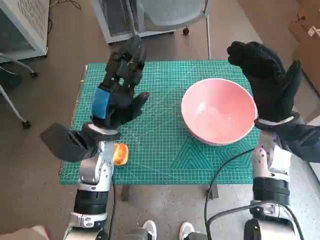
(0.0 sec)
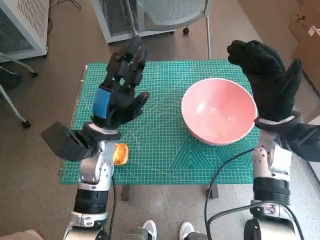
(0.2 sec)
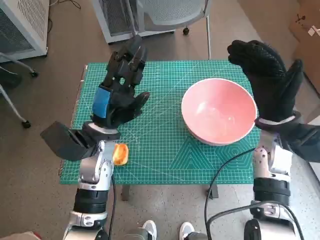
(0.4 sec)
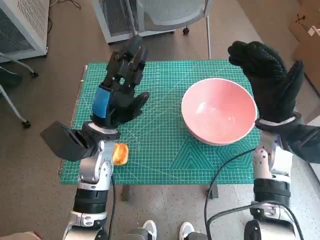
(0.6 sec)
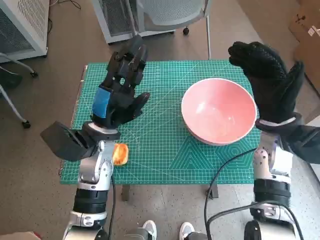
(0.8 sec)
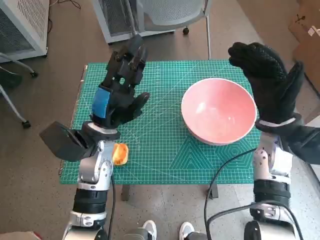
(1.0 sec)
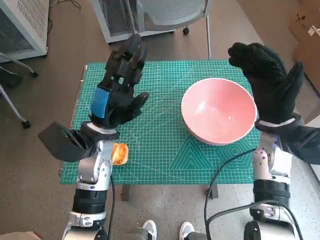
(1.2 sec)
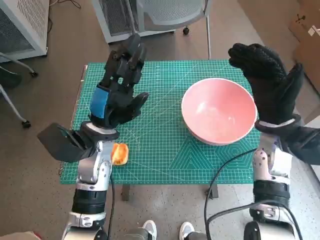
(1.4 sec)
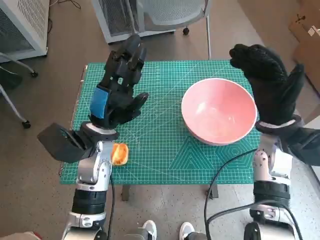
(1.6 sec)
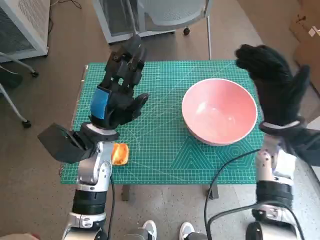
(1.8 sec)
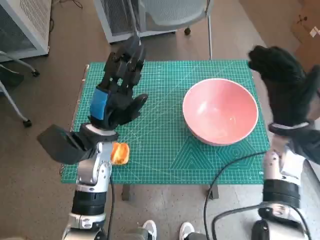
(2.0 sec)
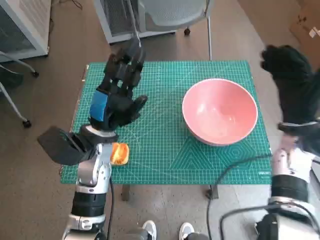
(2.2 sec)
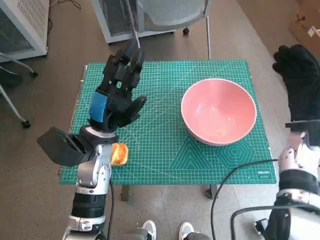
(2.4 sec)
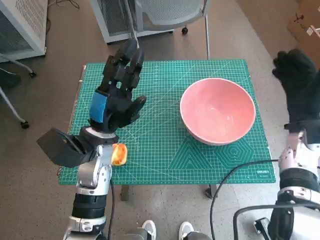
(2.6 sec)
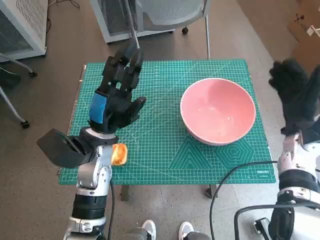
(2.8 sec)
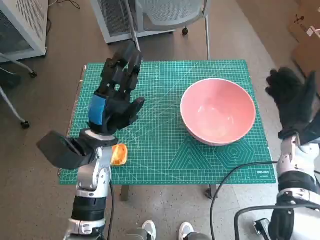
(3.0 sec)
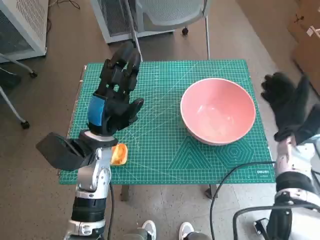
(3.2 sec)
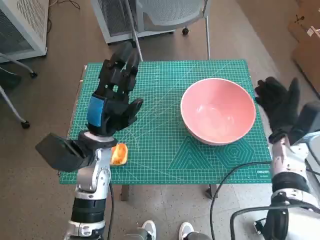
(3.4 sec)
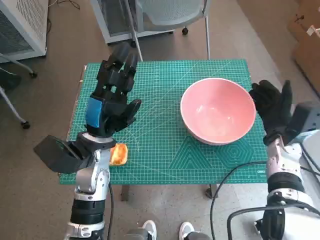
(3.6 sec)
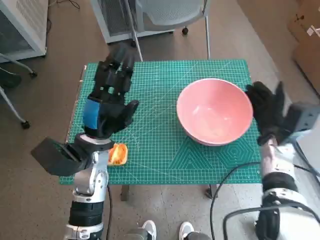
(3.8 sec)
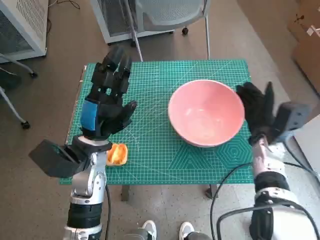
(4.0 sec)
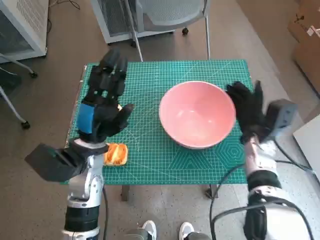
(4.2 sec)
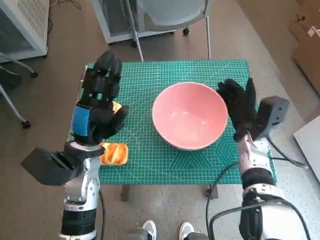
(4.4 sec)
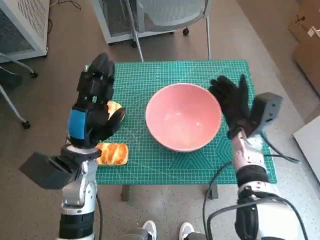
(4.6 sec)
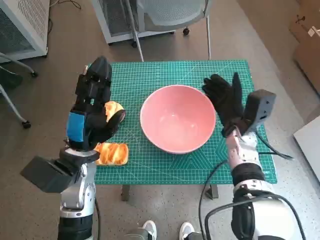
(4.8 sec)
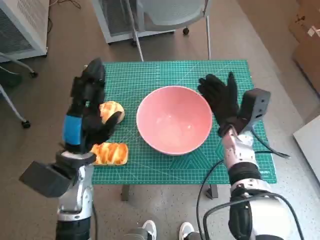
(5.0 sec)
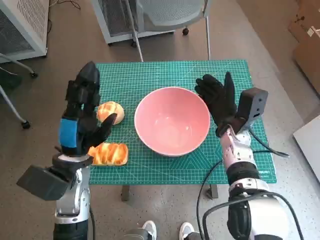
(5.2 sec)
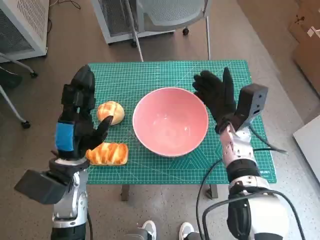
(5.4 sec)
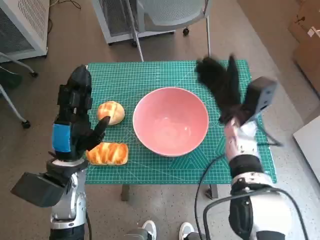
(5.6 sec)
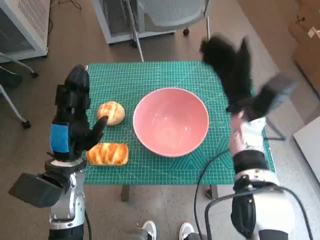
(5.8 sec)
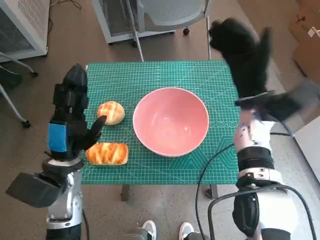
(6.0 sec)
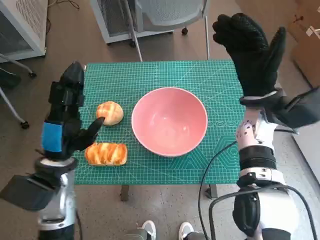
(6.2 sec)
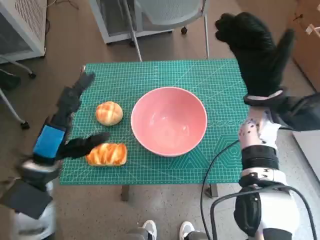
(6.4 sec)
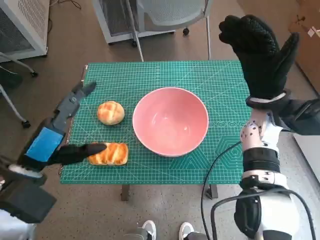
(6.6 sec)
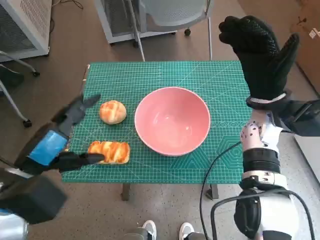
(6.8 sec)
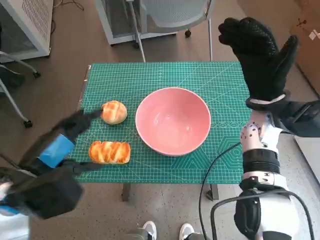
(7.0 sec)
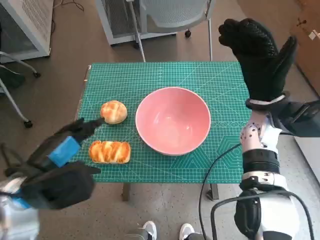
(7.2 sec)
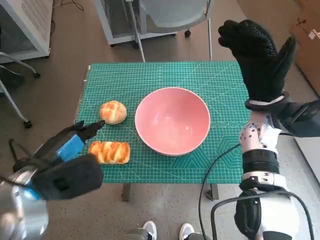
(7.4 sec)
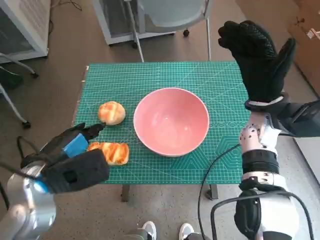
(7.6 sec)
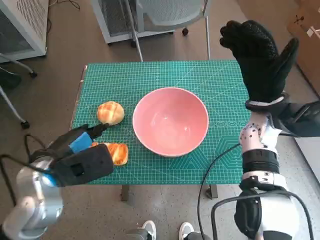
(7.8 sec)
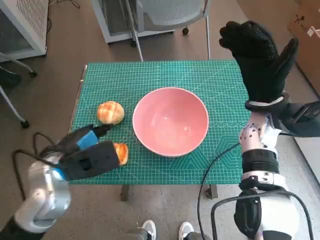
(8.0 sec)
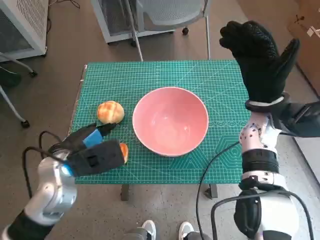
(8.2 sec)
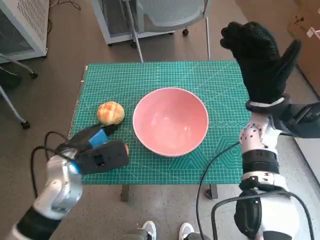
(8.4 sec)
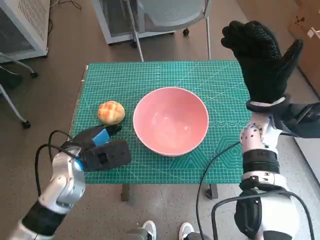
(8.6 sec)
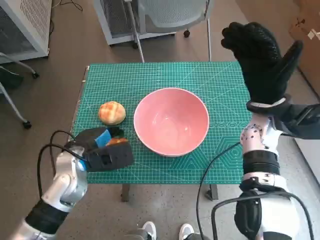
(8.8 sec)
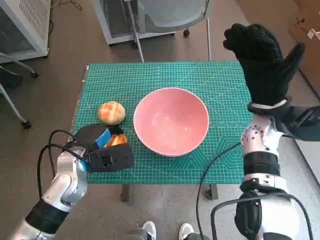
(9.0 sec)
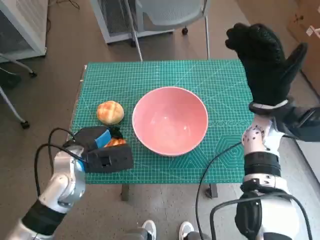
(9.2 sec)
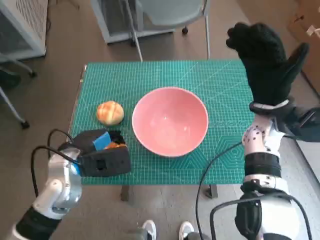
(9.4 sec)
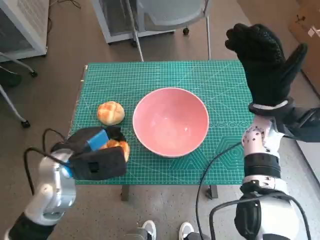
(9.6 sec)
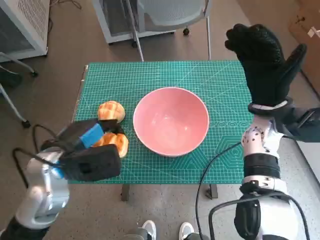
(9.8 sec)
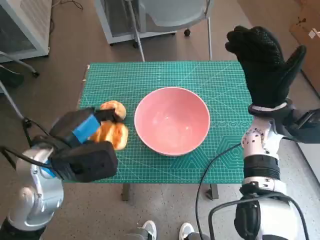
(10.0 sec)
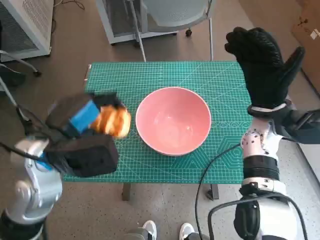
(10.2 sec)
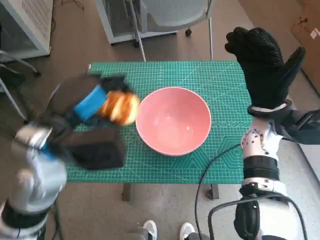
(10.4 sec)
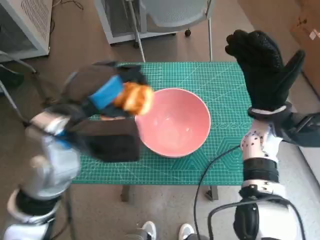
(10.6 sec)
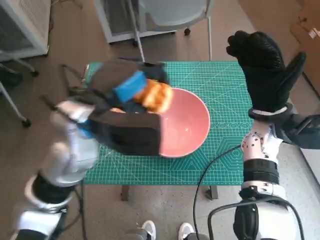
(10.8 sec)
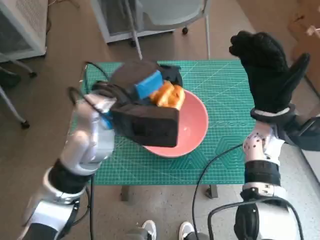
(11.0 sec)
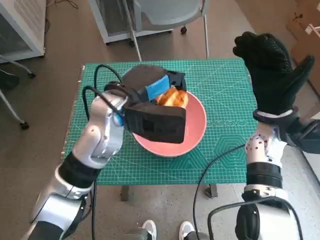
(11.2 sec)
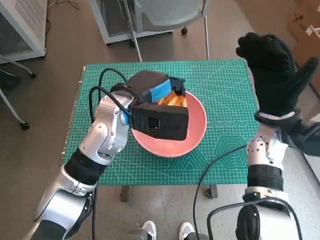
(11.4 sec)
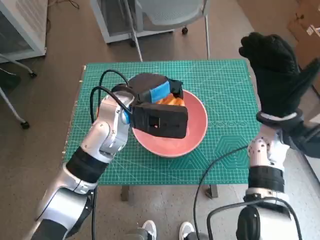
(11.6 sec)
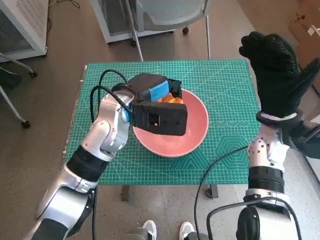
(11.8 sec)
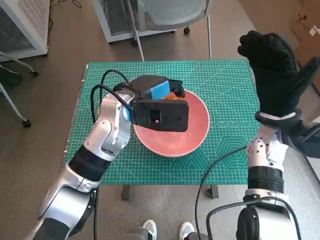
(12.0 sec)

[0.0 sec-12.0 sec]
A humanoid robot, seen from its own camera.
Step, 0.0 sec to 5.2 sec: Move the pink bowl to the center of table with right hand.
Step, 5.4 sec to 9.0 sec: Grasp the long bread with left hand.
1.6 sec to 3.0 sec: The right hand moves to the right and downward, approximately 10 cm.
3.0 sec to 4.4 sec: The right hand heads to the left, covering roughly 10 cm.
4.4 sec to 6.0 sec: The right hand heads upward, covering roughly 10 cm.
6.0 sec to 7.6 sec: The left hand moves upward, roughly 5 cm.
7.6 sec to 9.0 sec: The left hand goes some 10 cm downward and forward.
9.0 sec to 10.4 sec: The left hand goes roughly 15 cm upward.
10.4 sec to 12.0 sec: The left hand goes some 15 cm forward and to the right.

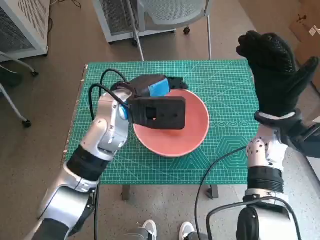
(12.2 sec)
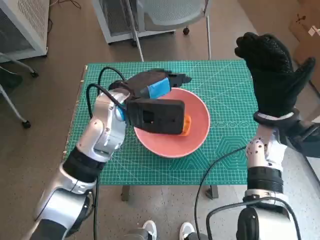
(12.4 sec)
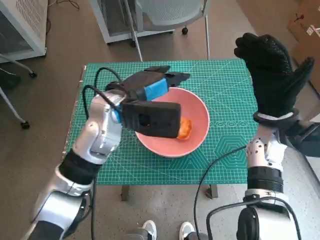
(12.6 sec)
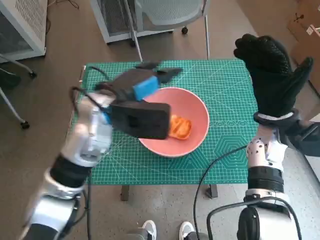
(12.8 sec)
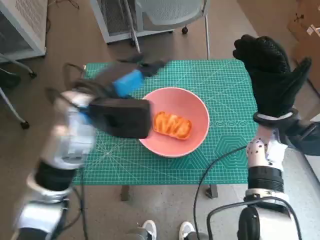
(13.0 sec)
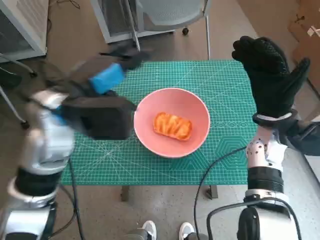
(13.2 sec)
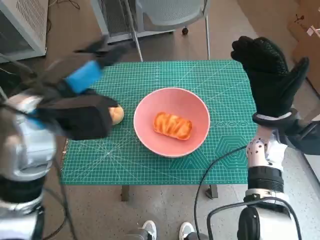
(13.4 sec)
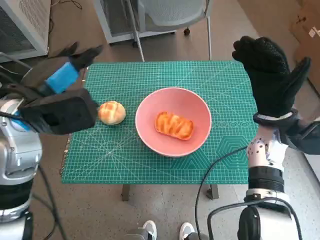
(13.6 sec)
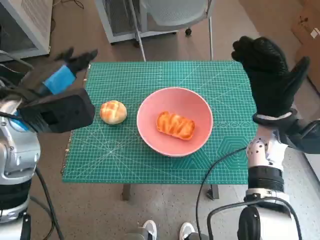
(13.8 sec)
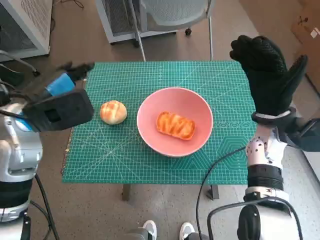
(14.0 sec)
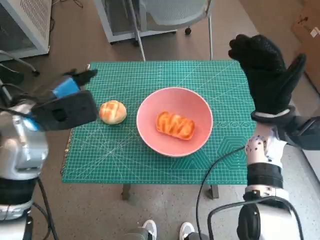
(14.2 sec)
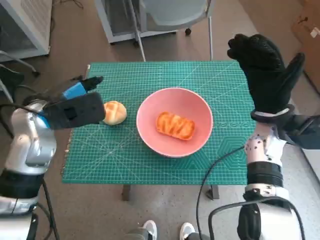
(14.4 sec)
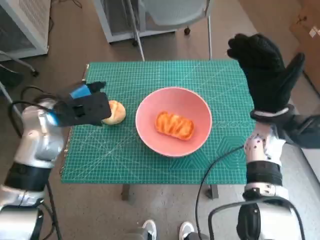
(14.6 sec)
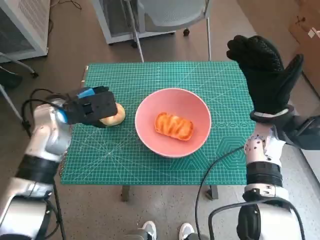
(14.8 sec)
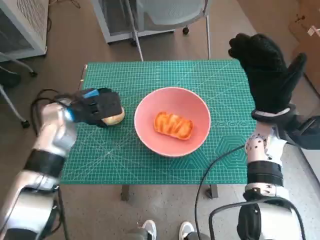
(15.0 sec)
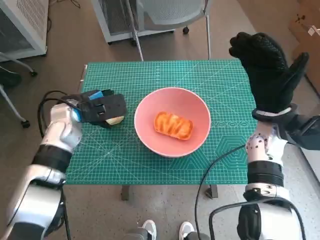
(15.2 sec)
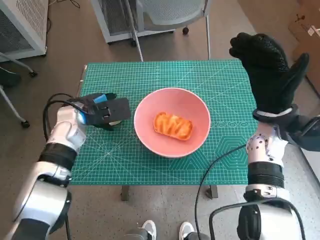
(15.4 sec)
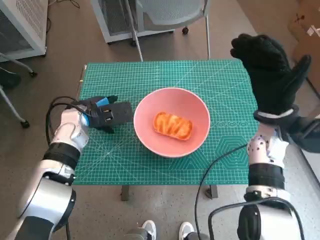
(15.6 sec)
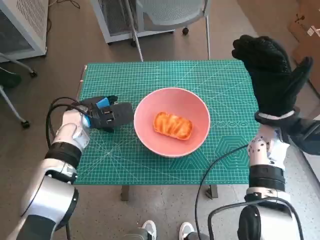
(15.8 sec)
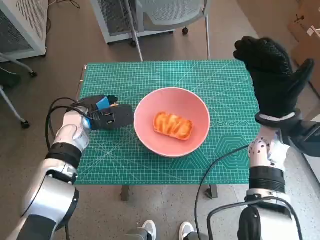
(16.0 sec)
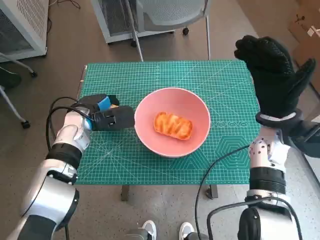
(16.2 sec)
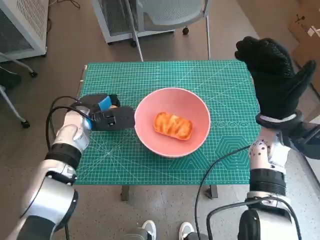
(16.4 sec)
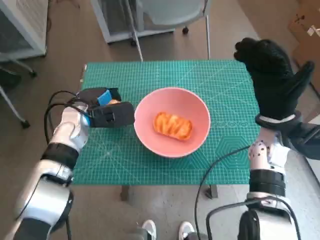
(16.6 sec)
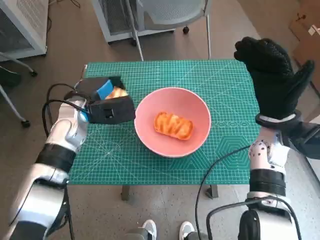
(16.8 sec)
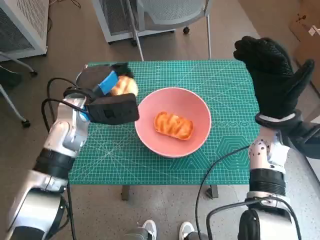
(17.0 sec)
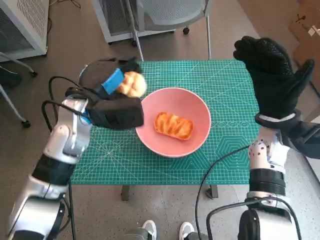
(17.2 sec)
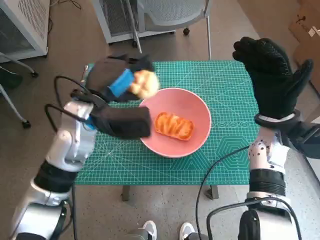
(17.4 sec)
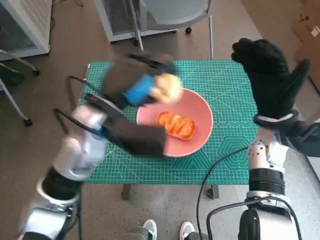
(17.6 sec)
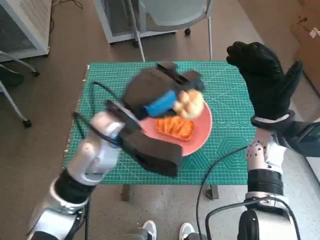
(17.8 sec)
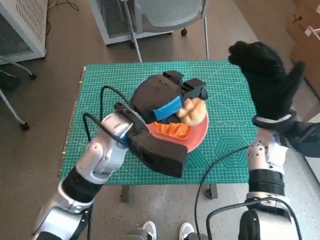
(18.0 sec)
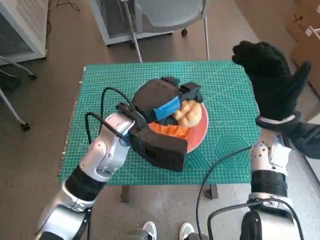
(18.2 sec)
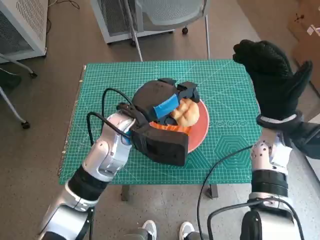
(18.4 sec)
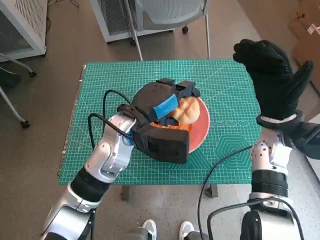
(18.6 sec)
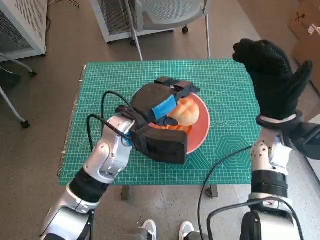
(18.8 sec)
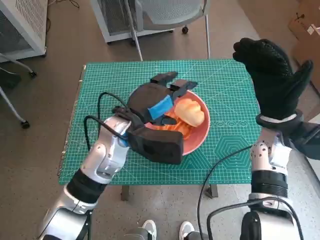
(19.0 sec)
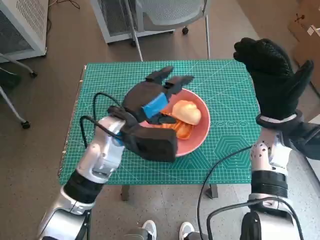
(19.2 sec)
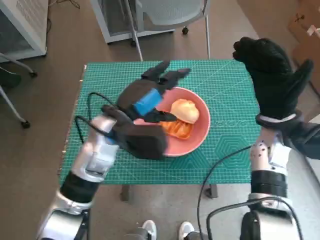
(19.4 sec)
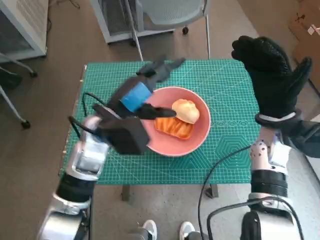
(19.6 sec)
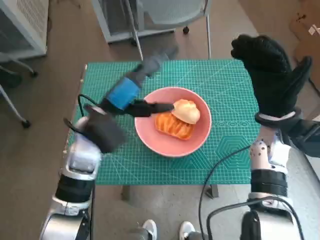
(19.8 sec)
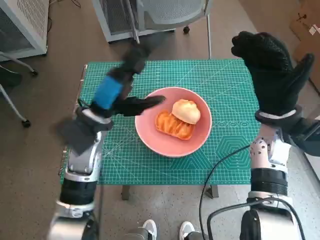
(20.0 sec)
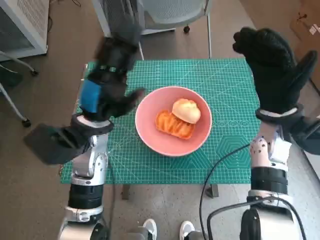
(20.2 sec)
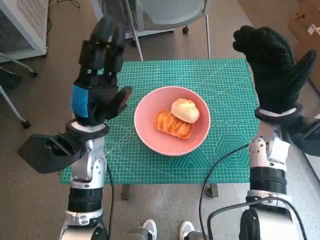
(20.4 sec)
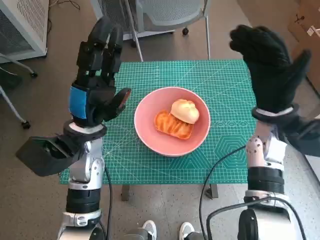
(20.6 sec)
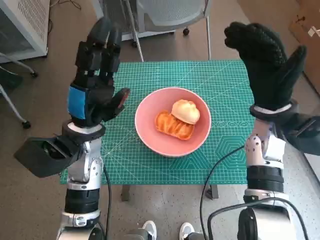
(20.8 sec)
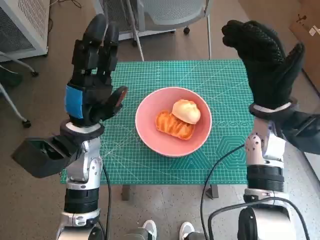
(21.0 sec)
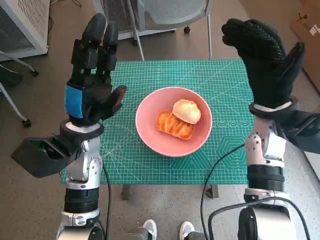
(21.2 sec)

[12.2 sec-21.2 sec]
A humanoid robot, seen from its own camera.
Step, 12.6 sec to 16.2 sec: Grasp the round bread with left hand.
Step, 16.4 sec to 19.2 sec: Place the round bread in pink bowl with left hand.
12.2 sec to 13.8 sec: The left hand moves to the left and backward, roughly 15 cm.
13.8 sec to 15.2 sec: The left hand moves downward and forward, approximately 15 cm.
15.2 sec to 16.6 sec: The hands move only a little.
16.6 sec to 18.2 sec: The left hand goes roughly 15 cm to the right, upward and backward.
18.2 sec to 19.8 sec: The left hand travels to the left by about 5 cm.
